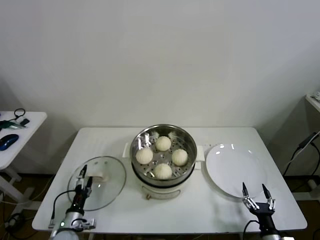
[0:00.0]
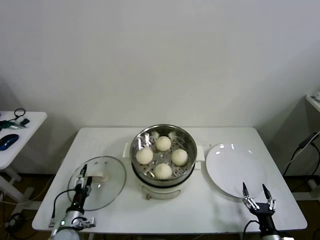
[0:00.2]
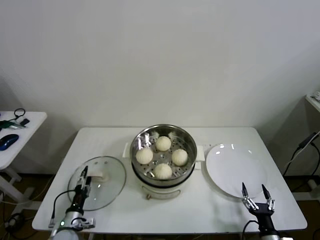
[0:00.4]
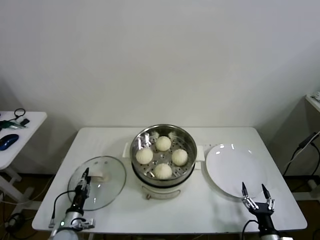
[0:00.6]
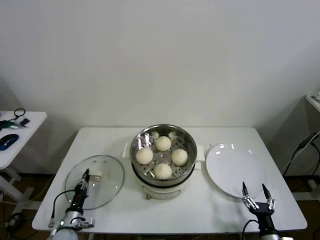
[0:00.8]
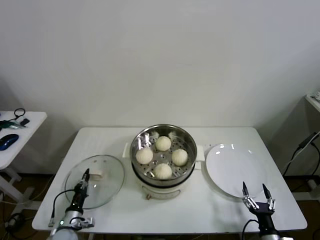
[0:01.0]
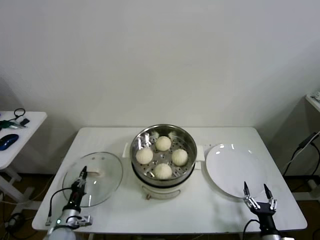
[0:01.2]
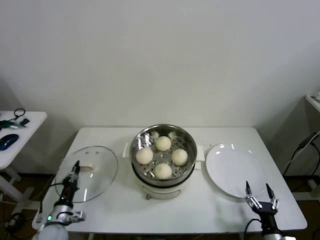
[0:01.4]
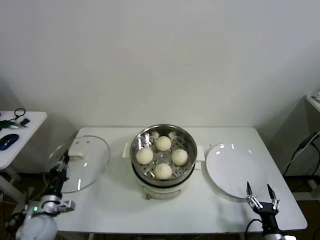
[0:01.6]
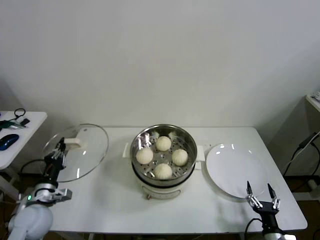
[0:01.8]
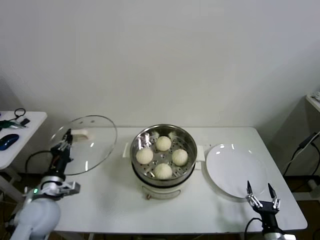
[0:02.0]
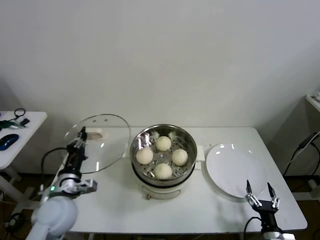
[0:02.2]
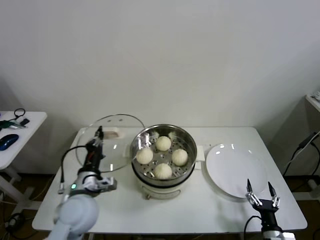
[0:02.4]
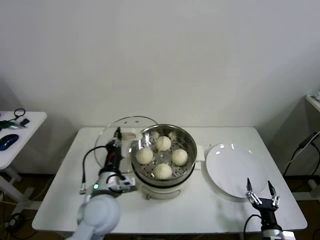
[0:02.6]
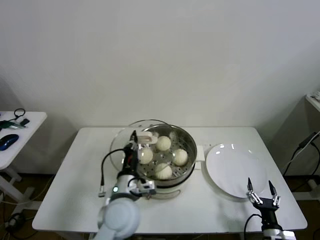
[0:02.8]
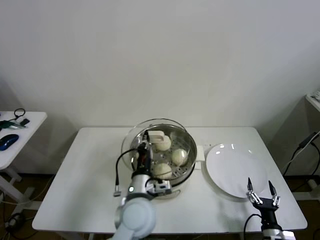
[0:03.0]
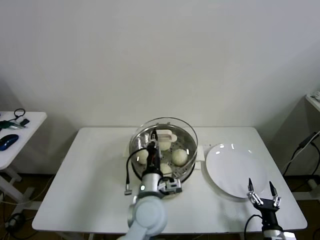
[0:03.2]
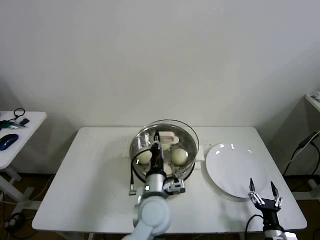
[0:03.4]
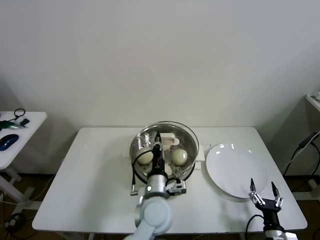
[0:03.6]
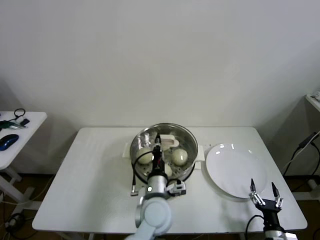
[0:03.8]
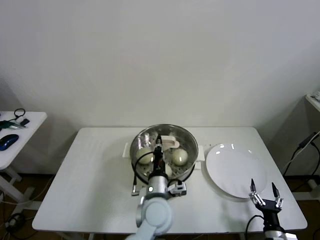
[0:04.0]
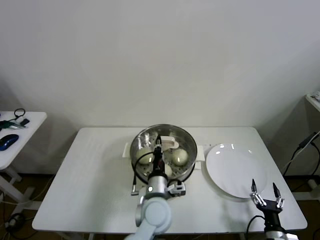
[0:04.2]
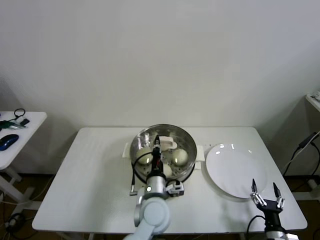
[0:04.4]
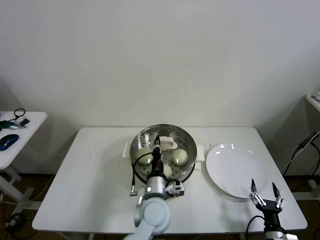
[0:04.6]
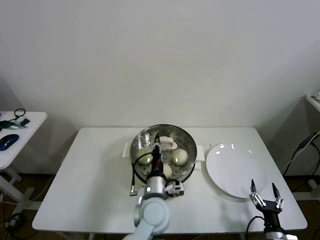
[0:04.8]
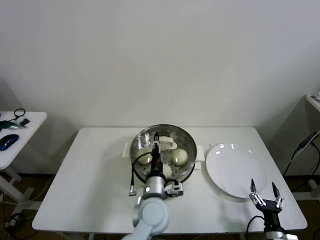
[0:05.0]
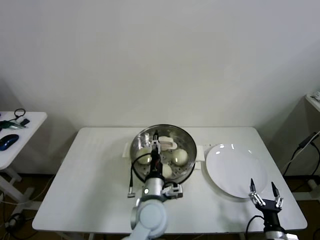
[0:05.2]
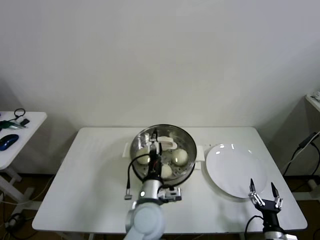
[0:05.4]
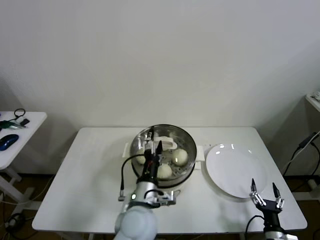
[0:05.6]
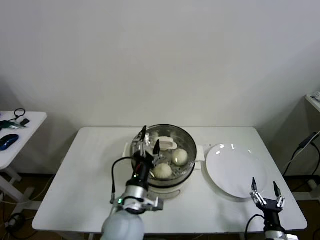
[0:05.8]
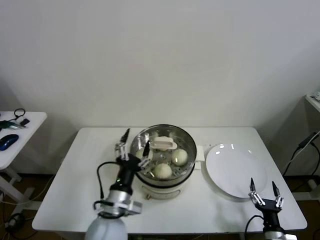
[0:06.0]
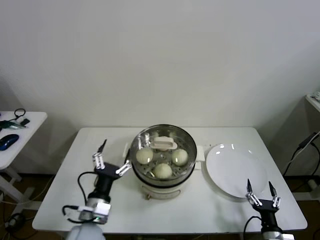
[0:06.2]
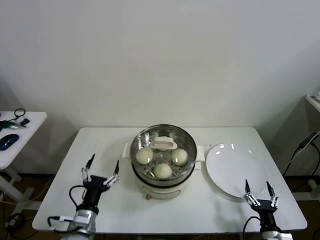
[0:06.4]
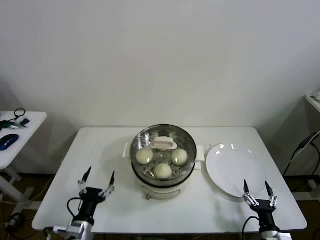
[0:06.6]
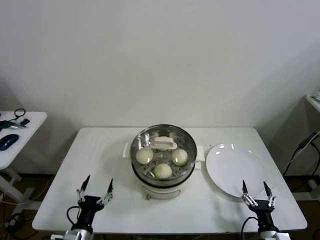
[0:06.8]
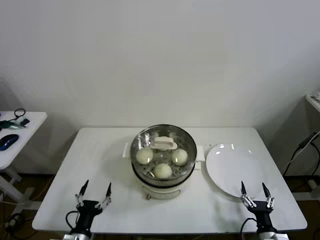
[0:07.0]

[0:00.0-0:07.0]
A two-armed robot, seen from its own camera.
Step, 0:01.0 to 0:04.6: Place the pot lid on the steamer with left gripper.
0:00.0 to 0:01.4: The left gripper closes.
0:01.4 to 0:02.8: The left gripper is displaced to the right and upward by about 30 cm.
0:02.8 to 0:04.2: The left gripper is displaced to the right by approximately 10 cm.
0:04.2 to 0:05.6: The left gripper shifts by about 5 cm, and opens its fingers.
0:05.6 to 0:07.0: The left gripper moves to the left, downward and backward, roughly 30 cm.

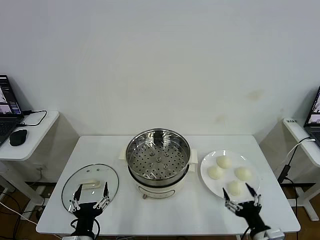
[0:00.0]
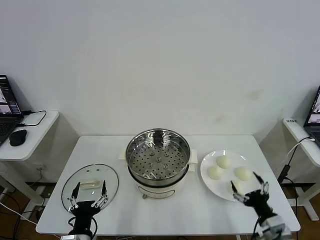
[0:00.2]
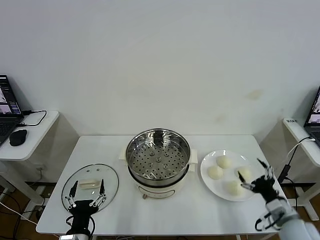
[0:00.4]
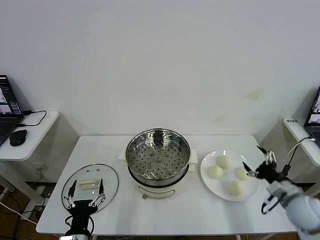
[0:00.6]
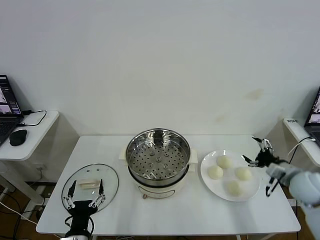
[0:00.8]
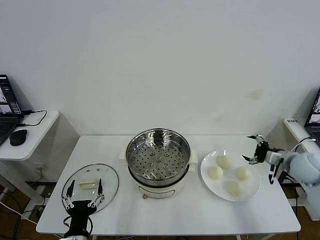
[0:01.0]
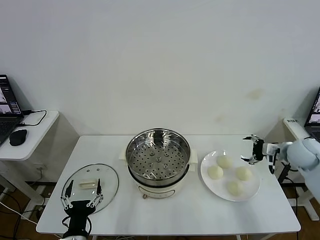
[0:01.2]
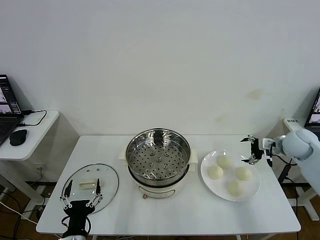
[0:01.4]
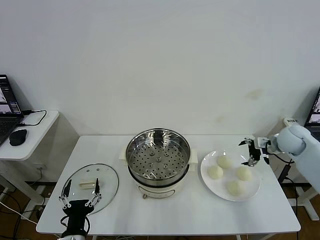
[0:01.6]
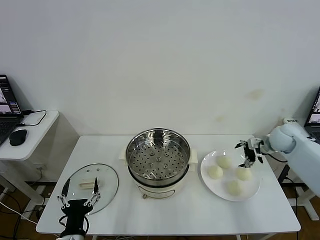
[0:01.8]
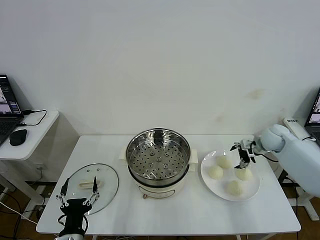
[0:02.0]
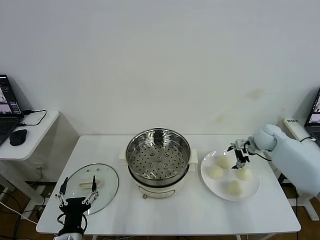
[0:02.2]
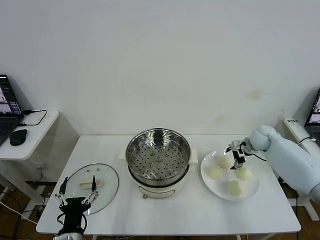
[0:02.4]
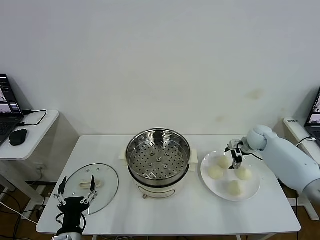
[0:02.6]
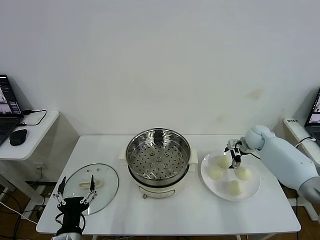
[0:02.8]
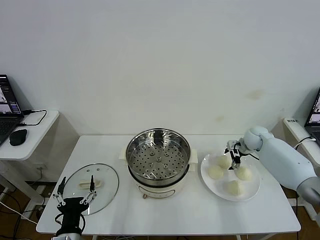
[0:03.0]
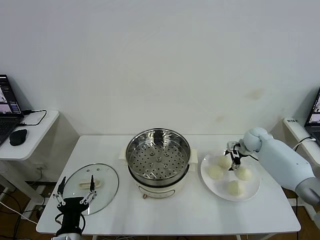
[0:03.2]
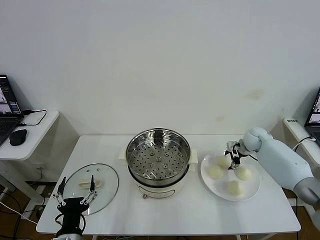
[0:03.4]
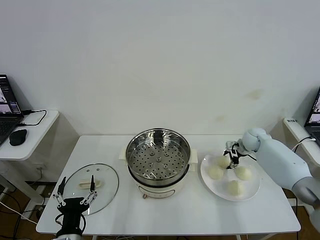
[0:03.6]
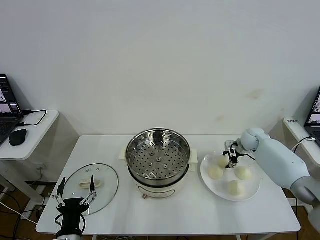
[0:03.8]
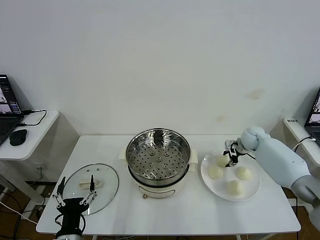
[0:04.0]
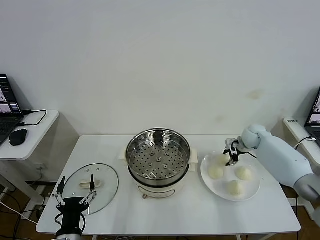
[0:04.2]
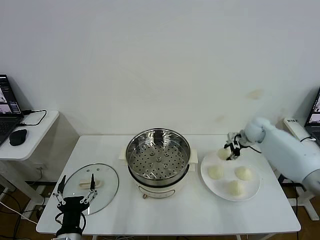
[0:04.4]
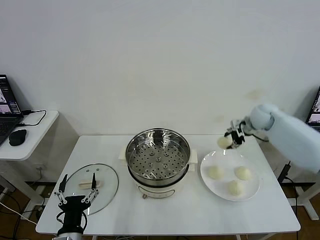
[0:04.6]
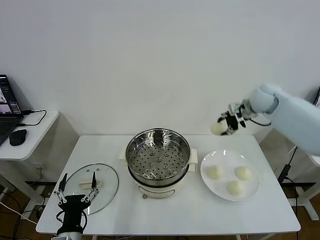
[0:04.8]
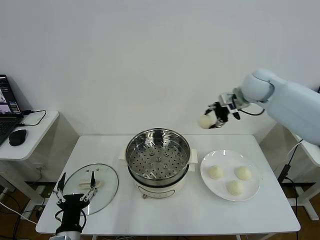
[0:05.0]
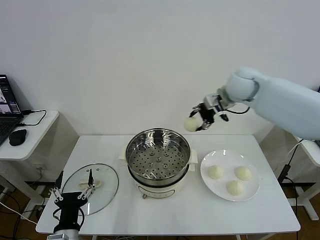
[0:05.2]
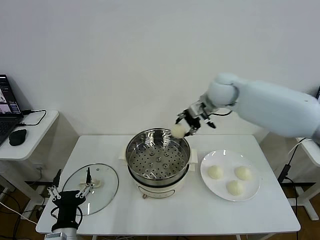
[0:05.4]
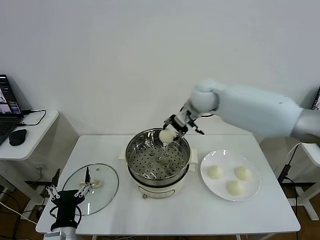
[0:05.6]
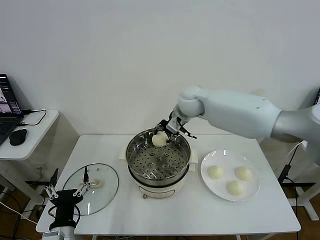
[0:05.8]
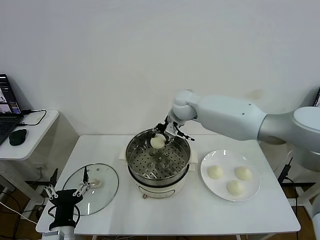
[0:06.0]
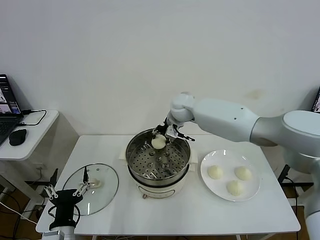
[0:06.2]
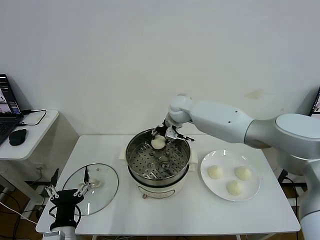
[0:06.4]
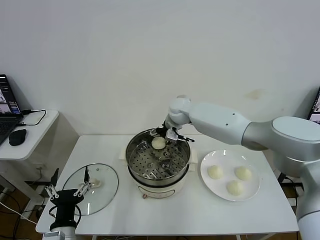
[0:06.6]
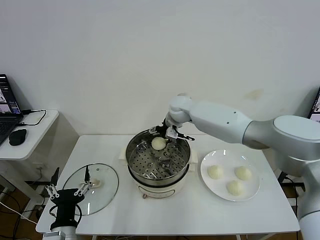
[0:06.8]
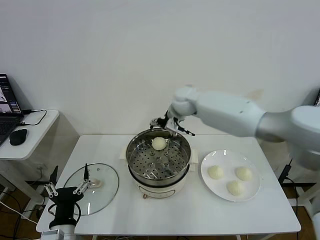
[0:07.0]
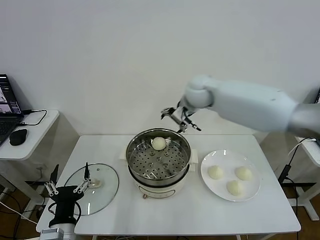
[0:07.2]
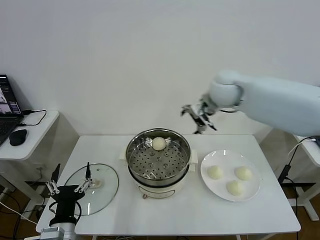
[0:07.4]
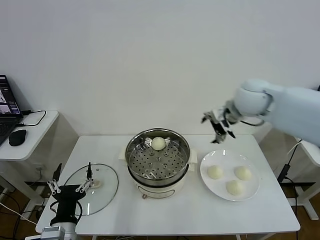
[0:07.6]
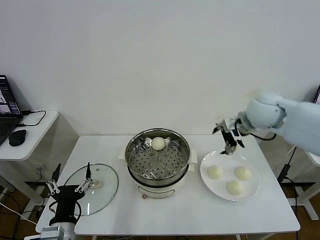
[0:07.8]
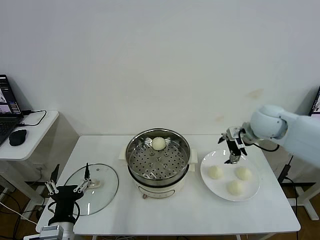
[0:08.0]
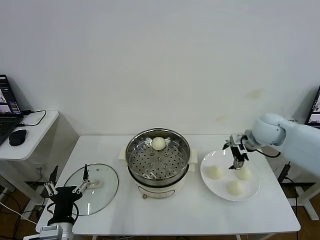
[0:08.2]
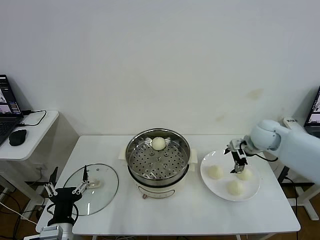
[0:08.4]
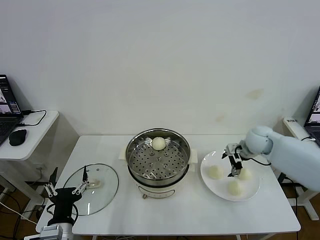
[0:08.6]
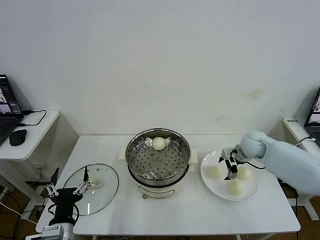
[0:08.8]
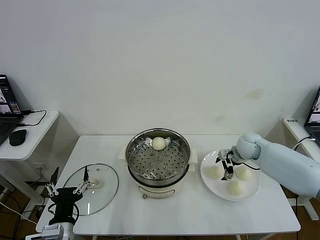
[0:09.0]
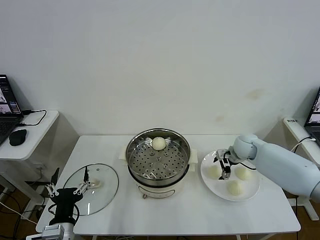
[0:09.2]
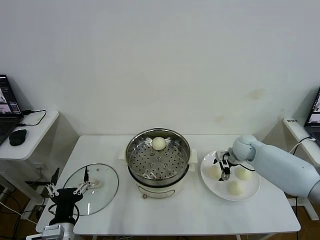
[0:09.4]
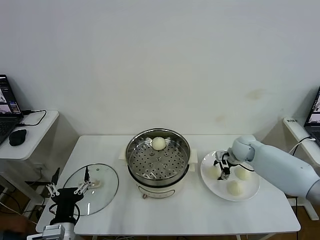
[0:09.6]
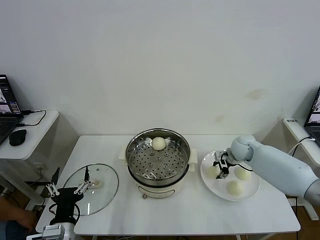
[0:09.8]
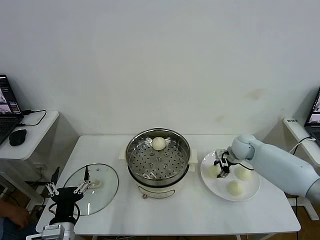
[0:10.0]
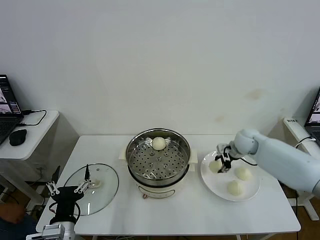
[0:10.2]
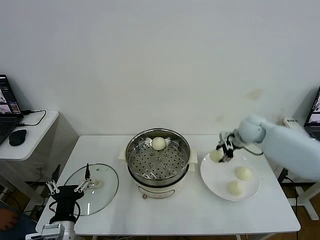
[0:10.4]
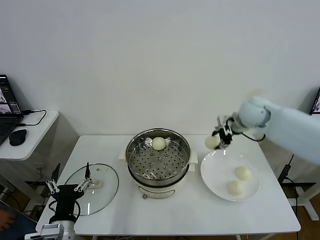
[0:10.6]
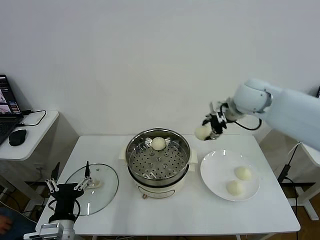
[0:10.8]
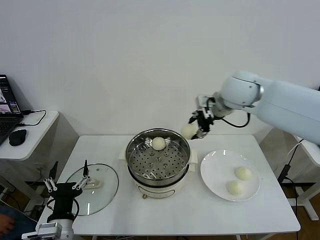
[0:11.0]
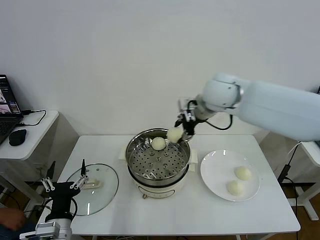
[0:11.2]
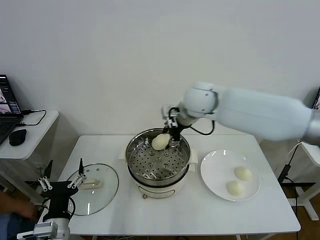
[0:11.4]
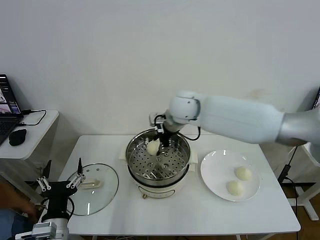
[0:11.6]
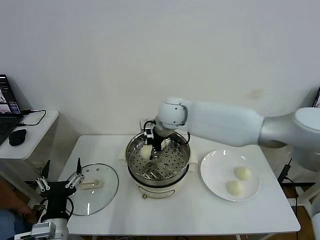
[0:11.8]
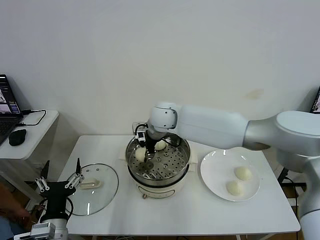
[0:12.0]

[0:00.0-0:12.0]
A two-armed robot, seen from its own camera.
Step, 0:00.0 to 0:03.8: Grasp the baozi in the plate with right gripper.
Step, 0:04.0 to 0:06.8: Place the baozi on the steamer with right gripper.
Step, 0:07.0 to 0:09.8: Grasp the baozi in the plate with right gripper.
0:01.6 to 0:03.0: The right gripper goes roughly 10 cm downward, forward and to the left.
0:03.0 to 0:04.4: The right gripper moves upward, approximately 10 cm, and closes its fingers.
0:04.4 to 0:06.0: The right gripper is displaced to the left by some 30 cm.
0:06.0 to 0:07.6: The right gripper travels to the right, backward and upward by some 25 cm, and opens.
0:07.6 to 0:09.0: The right gripper travels downward by about 20 cm.
0:09.0 to 0:10.4: The right gripper travels upward by some 10 cm, and closes.
0:10.4 to 0:12.0: The right gripper moves to the left, some 30 cm.

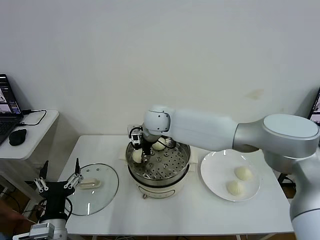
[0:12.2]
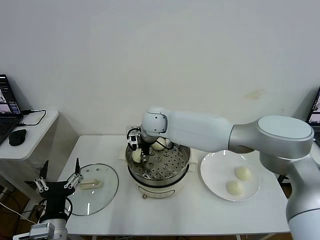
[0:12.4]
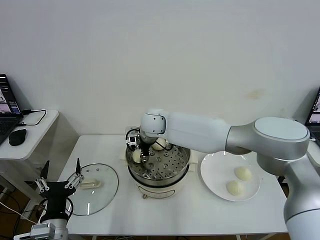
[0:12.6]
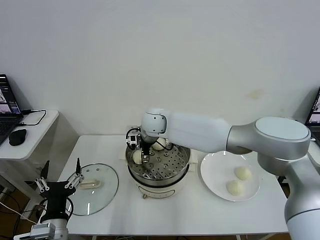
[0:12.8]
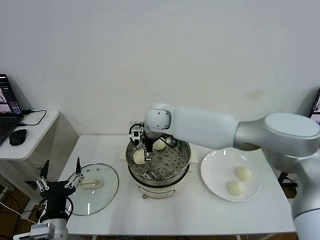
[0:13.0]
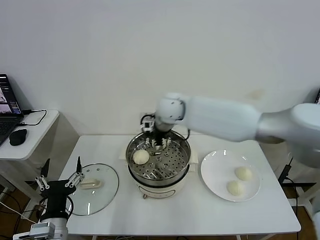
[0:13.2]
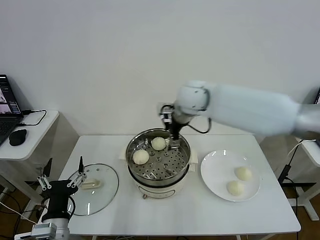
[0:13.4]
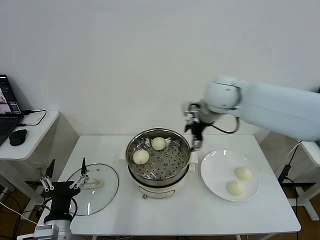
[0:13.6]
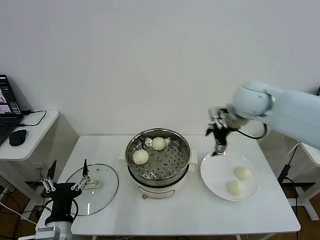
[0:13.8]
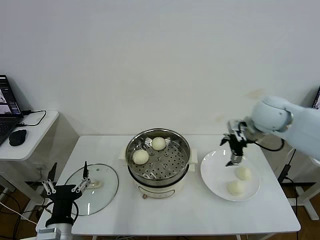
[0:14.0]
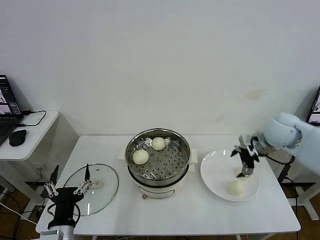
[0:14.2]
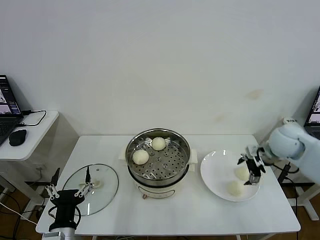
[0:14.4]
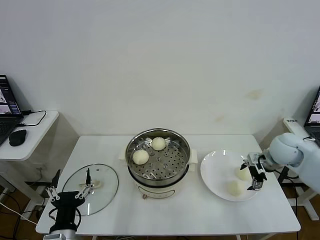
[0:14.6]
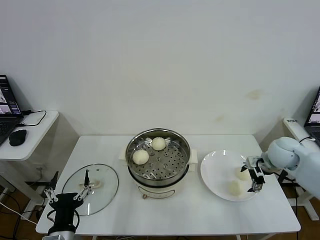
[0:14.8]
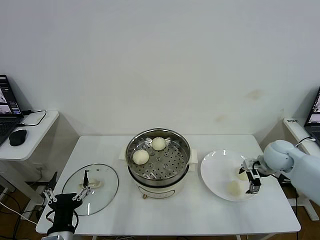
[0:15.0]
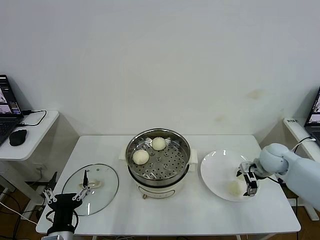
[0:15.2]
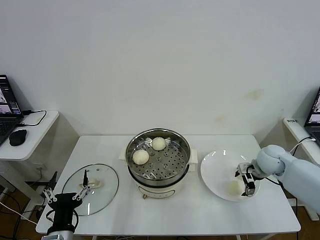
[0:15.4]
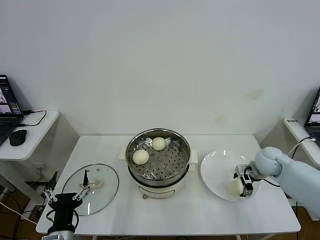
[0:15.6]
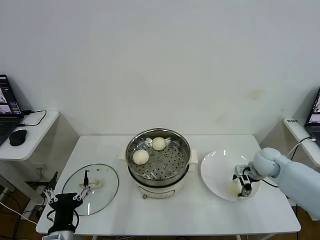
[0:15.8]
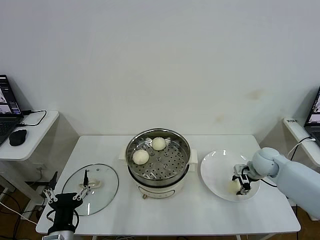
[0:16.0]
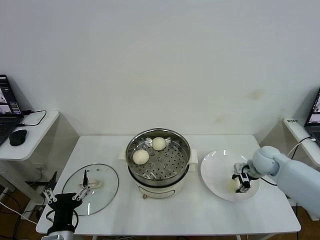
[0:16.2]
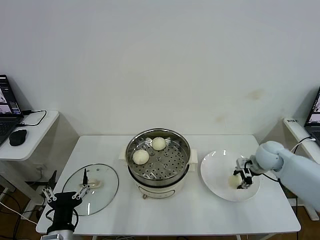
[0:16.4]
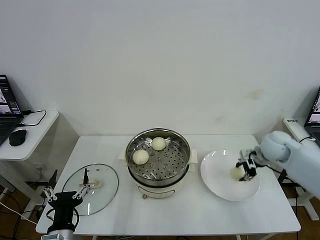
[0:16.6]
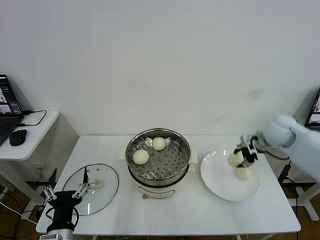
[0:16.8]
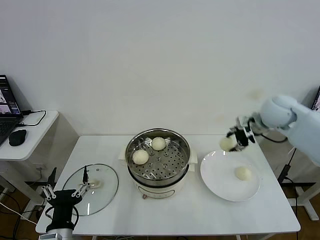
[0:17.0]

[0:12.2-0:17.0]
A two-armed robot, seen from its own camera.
Step, 0:13.2 to 0:16.0: Grasp the baozi in the plate with right gripper.
0:12.2 to 0:13.8: The right gripper goes approximately 30 cm to the right, and opens its fingers.
0:13.8 to 0:15.4: The right gripper is displaced downward and to the right by approximately 25 cm.
0:15.4 to 0:17.0: The right gripper travels upward by roughly 20 cm, and closes.
